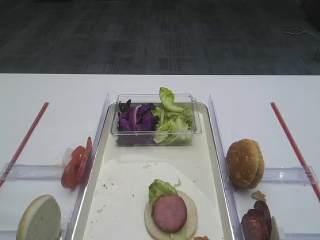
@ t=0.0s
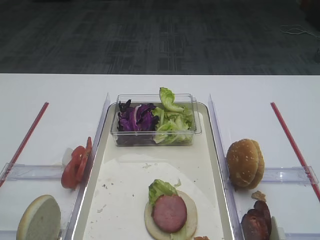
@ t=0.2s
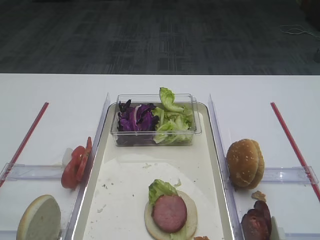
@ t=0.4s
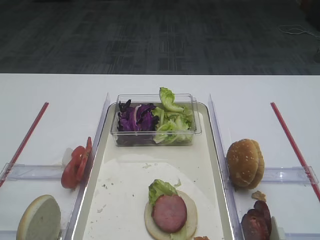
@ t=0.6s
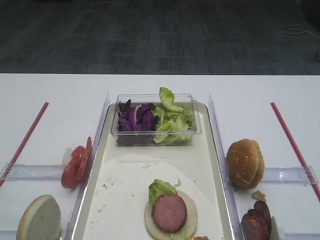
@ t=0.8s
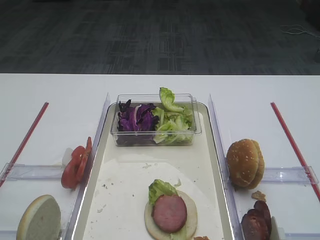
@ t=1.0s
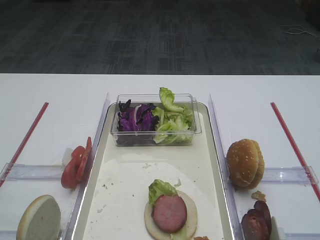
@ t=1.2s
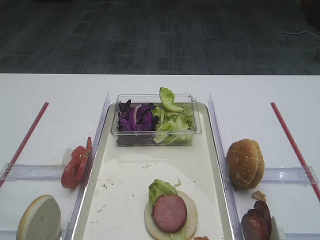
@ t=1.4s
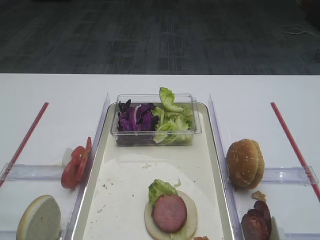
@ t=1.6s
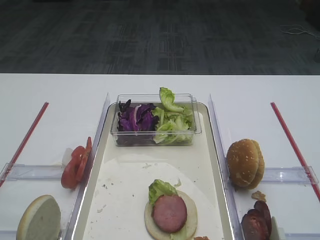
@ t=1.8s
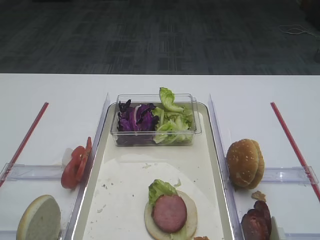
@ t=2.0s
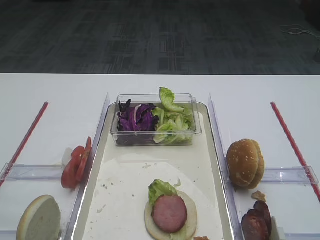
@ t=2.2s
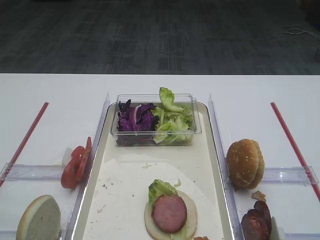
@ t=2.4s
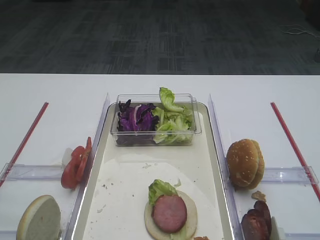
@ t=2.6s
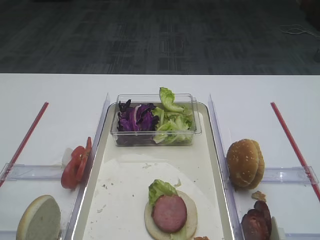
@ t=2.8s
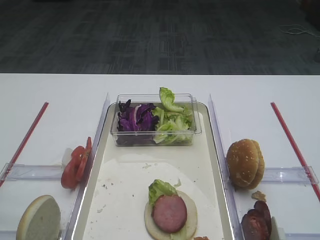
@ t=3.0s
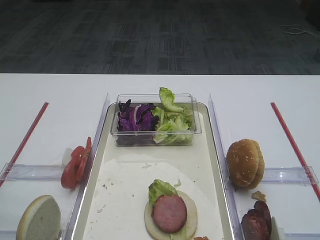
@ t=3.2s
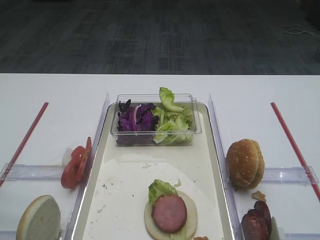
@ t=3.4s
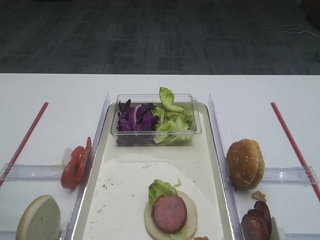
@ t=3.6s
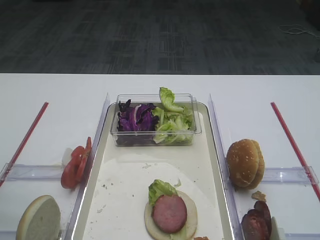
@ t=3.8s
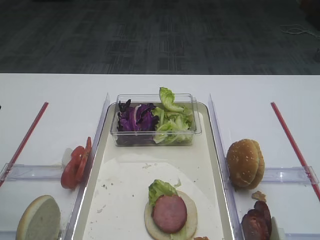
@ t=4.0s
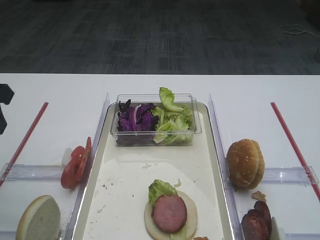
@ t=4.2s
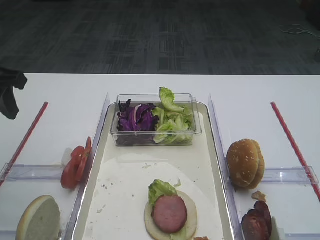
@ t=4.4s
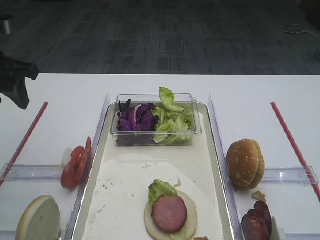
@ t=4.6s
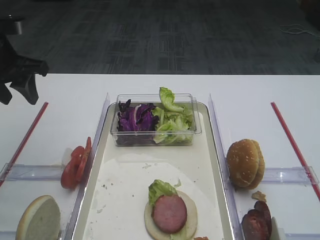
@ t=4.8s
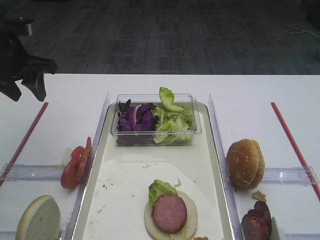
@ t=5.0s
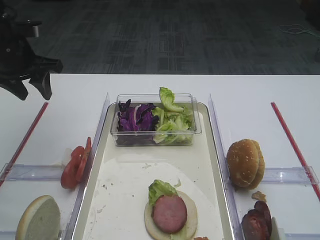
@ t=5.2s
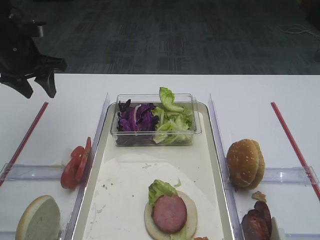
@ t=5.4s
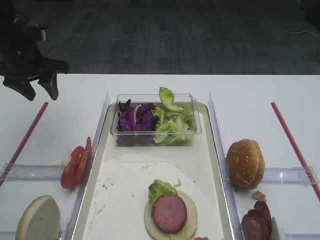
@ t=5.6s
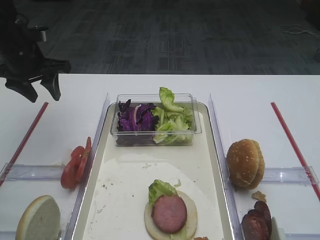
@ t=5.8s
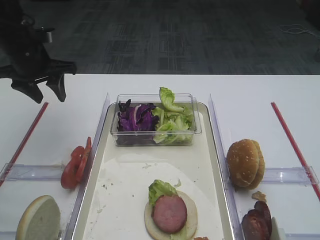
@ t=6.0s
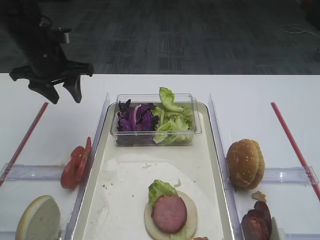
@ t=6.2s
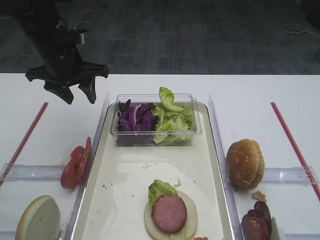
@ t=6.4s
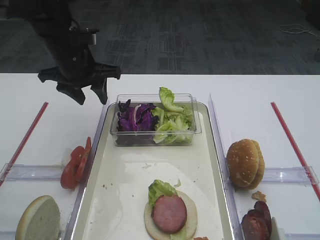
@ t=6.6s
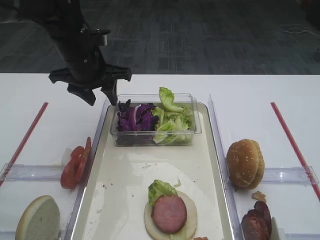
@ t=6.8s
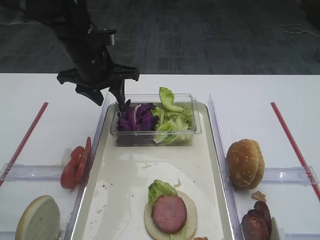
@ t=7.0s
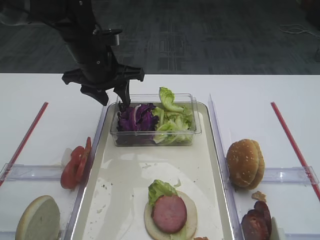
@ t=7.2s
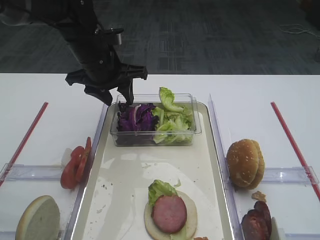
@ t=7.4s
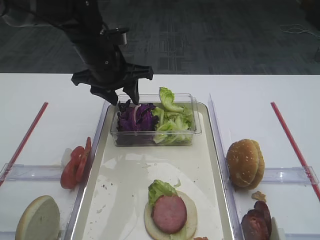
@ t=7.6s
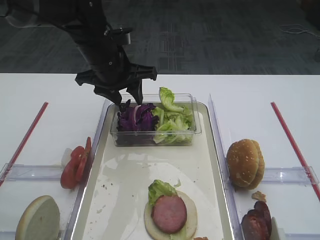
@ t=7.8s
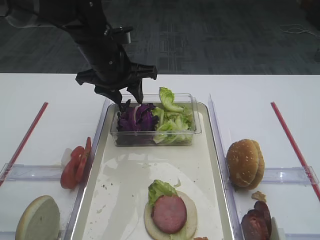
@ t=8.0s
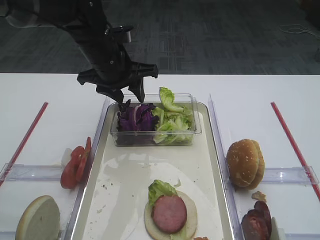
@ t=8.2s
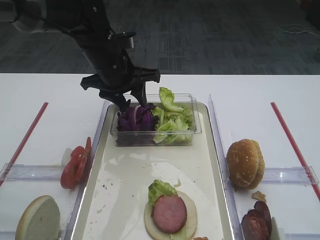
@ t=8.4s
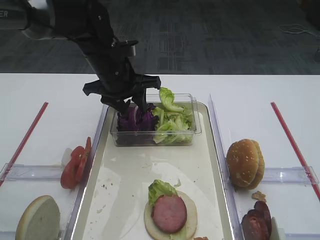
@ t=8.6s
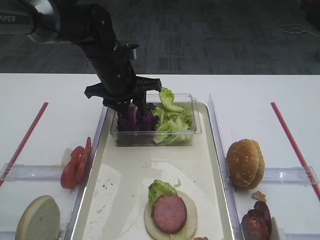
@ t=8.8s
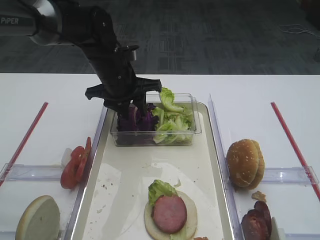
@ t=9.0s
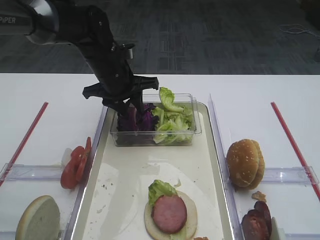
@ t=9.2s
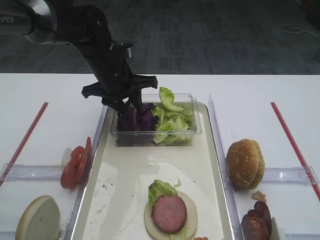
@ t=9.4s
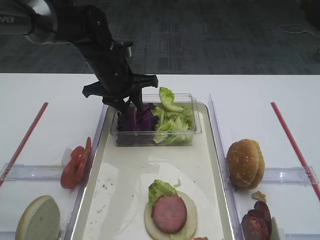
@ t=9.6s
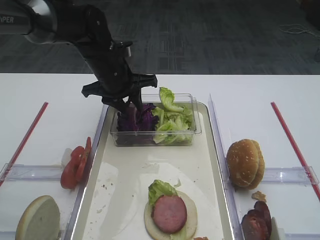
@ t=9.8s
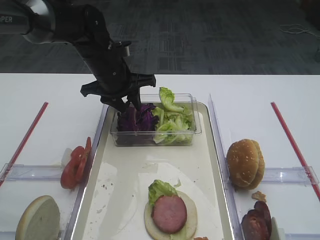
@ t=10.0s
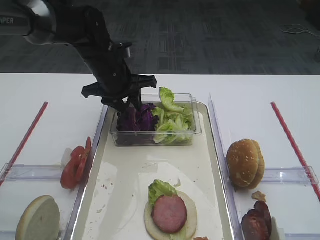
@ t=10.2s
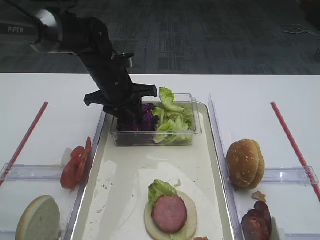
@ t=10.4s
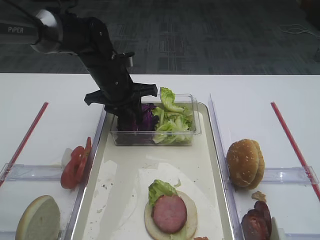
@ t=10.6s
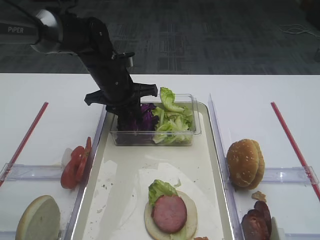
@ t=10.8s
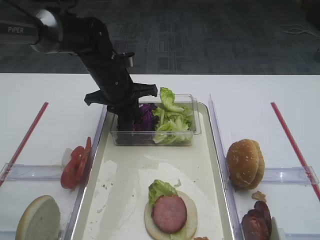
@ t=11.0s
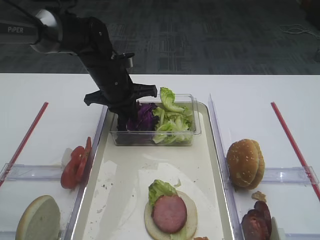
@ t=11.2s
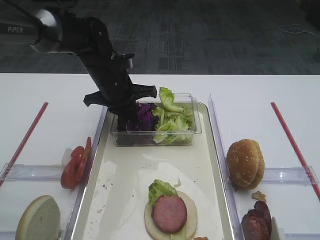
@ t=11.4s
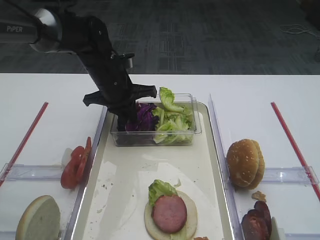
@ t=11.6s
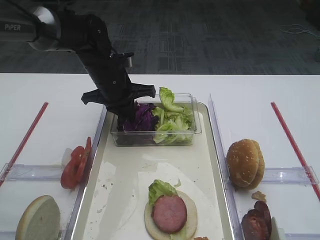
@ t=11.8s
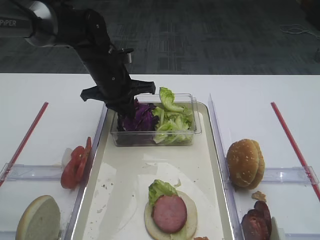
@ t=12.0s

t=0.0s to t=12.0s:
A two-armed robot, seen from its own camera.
t=3.0s to t=4.4s: The left gripper moves forward, about 20 cm.
t=4.4s to t=6.0s: The left gripper travels forward and downward by approximately 15 cm.
t=6.0s to t=7.6s: The left gripper moves to the right, roughly 15 cm.
t=7.6s to t=9.0s: The grippers make only small movements.
t=9.0s to t=10.4s: The grippers move only a little.
t=10.4s to t=12.0s: The left gripper closes up.

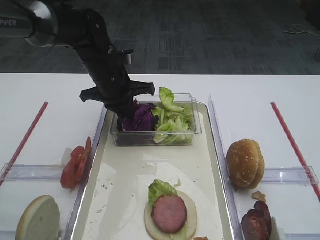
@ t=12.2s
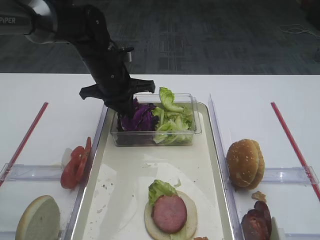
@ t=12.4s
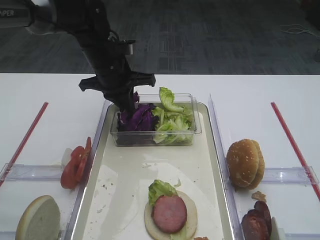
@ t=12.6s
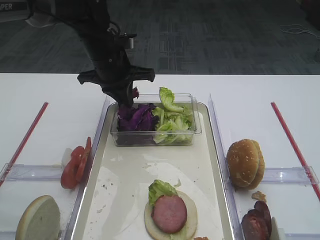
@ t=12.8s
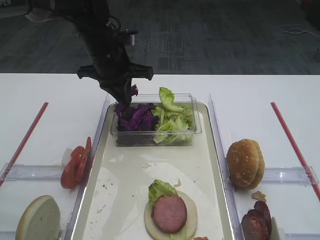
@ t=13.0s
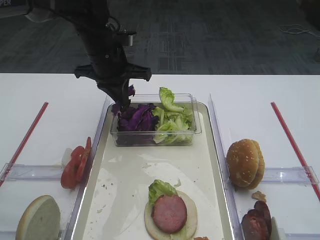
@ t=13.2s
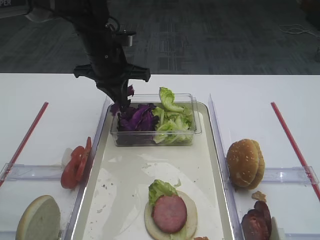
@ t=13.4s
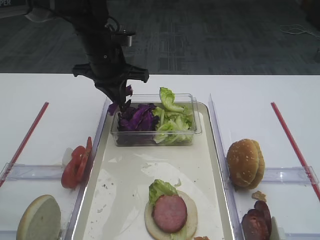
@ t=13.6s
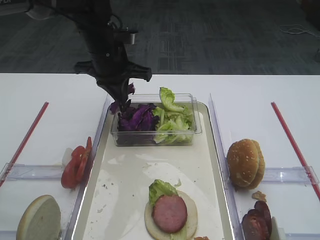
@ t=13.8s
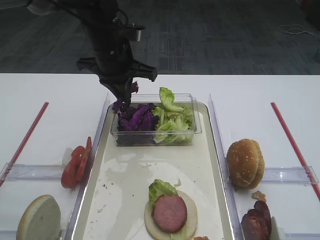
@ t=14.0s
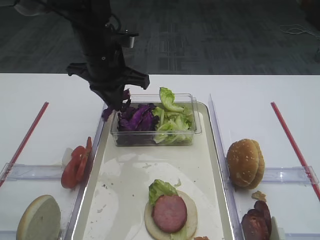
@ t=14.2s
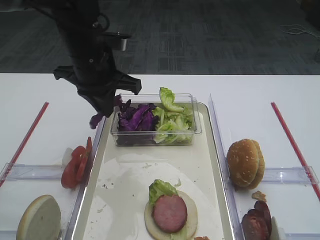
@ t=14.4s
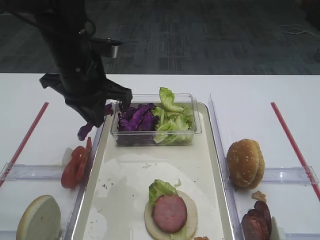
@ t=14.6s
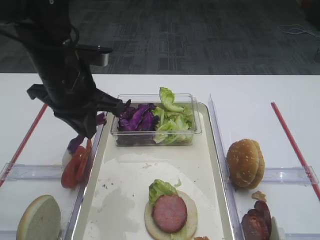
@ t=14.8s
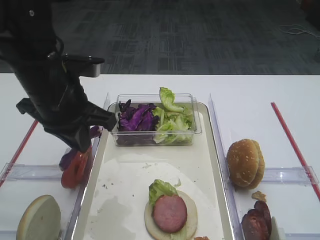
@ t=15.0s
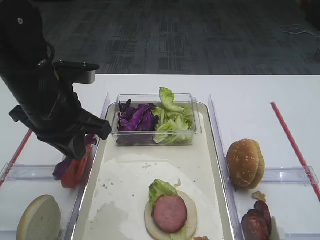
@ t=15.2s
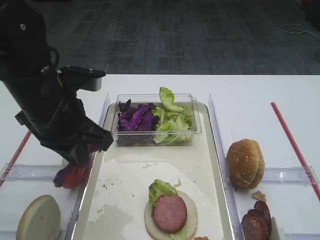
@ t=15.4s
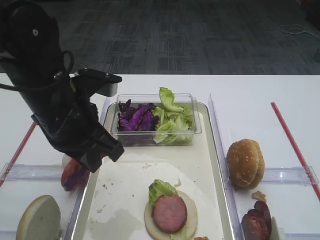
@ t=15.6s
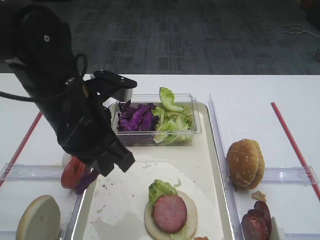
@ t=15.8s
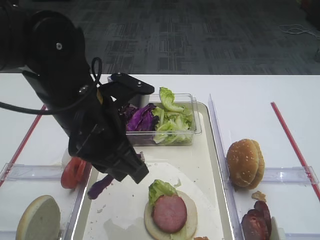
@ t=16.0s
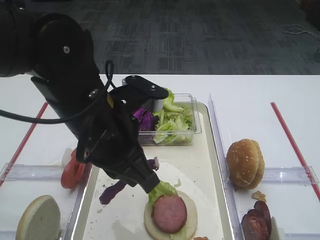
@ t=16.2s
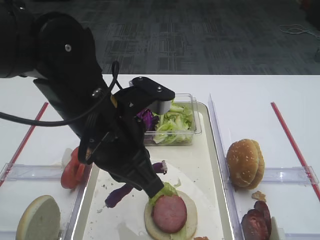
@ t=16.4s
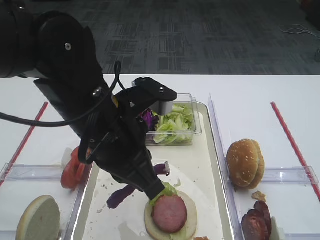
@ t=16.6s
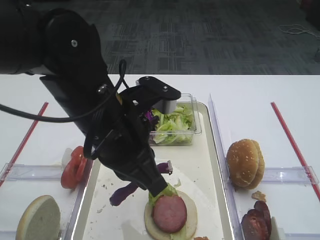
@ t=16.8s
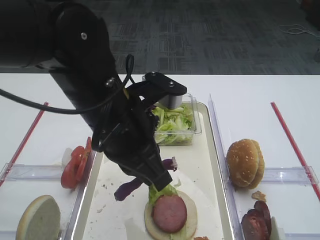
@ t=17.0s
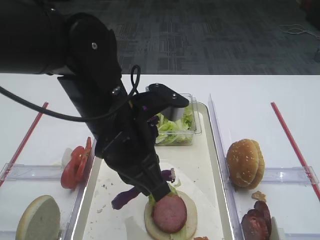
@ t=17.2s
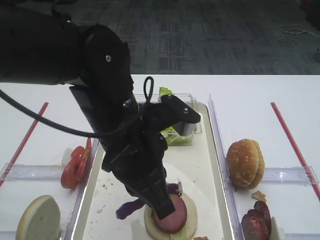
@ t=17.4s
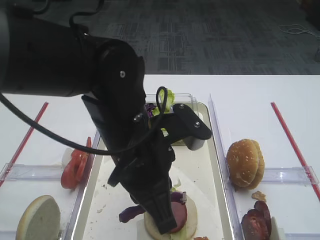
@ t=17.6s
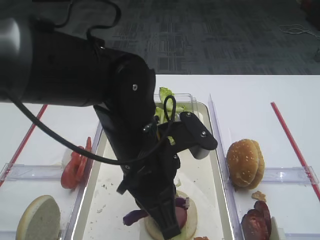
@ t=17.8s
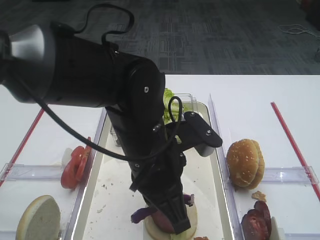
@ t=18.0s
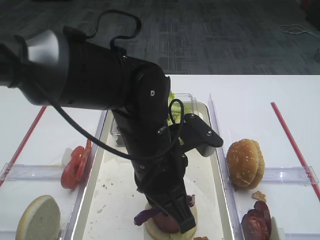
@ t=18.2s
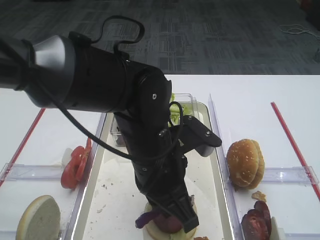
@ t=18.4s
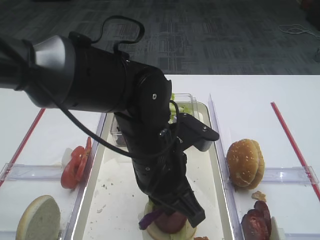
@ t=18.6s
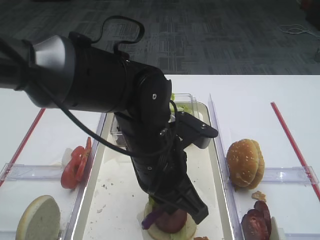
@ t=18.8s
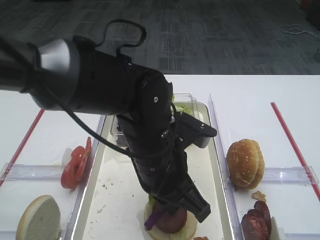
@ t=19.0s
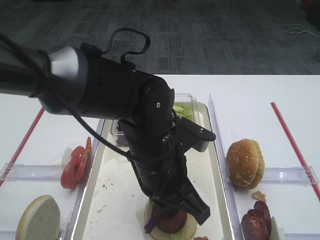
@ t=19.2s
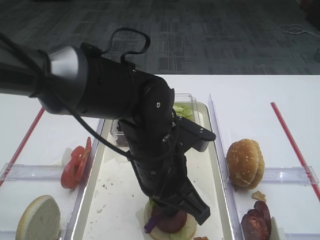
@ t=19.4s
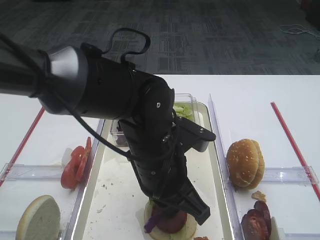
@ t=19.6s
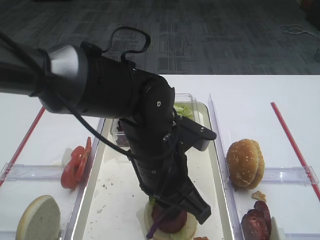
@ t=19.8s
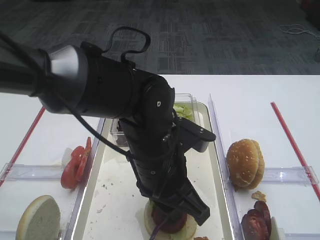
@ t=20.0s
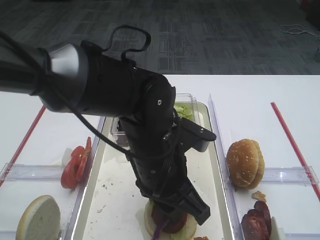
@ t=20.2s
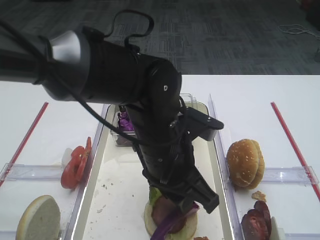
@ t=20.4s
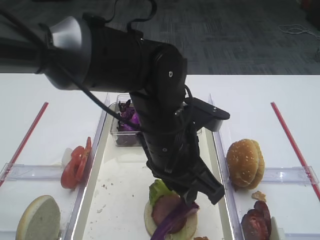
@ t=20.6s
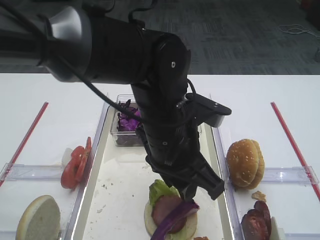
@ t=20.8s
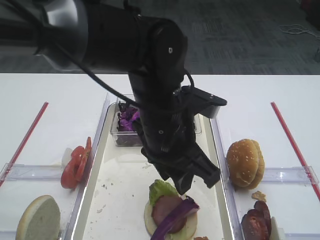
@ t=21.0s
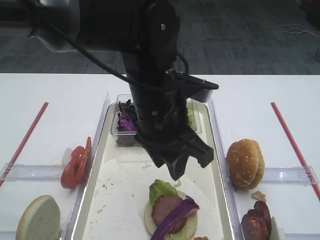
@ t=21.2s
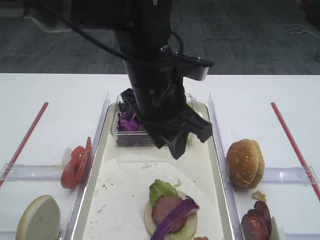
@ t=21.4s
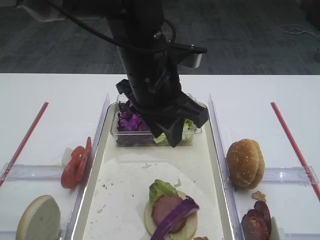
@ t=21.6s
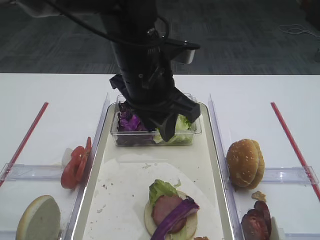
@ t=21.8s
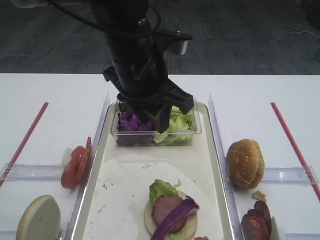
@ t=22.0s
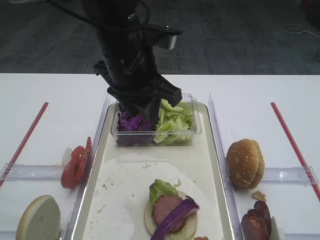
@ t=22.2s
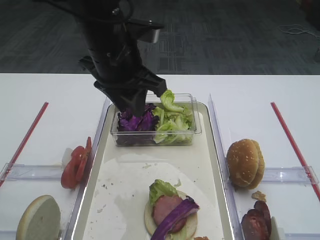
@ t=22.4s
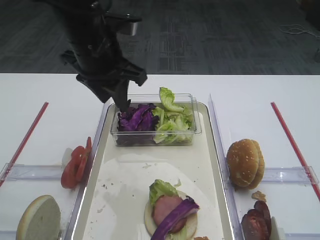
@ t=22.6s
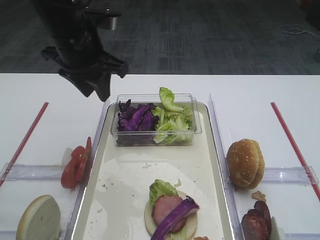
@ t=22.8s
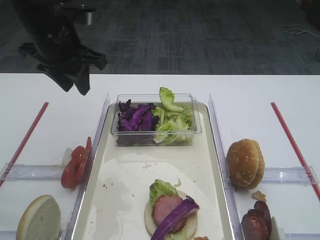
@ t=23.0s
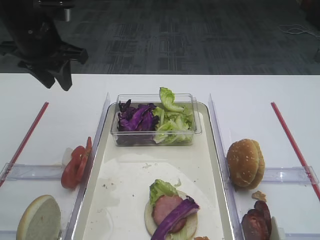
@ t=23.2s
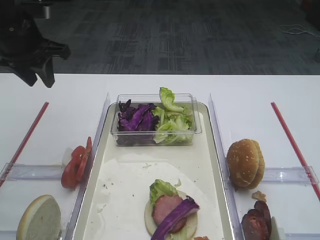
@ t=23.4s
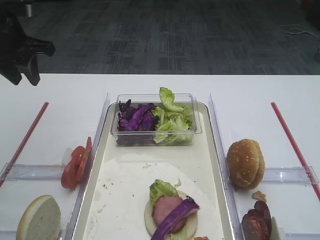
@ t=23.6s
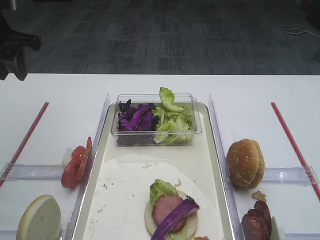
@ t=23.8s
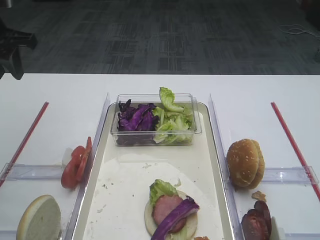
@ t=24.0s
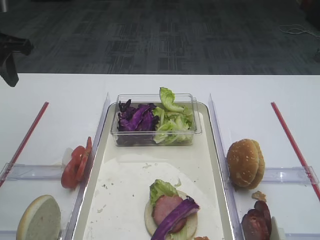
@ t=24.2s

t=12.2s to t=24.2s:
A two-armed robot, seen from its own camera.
Step, t=13.6s to t=20.8s: Place the purple cabbage on the cutlet with the left gripper.
t=12.2s to t=13.8s: The left gripper shifts about 5 cm upward.
t=13.8s to t=15.2s: The left gripper shifts about 15 cm backward.
t=15.2s to t=16.6s: The left gripper goes some 10 cm to the right and backward.
t=16.6s to t=18.2s: The left gripper travels to the right by approximately 5 cm.
t=18.2s to t=19.8s: The grippers make only small movements.
t=19.8s to t=21.2s: The left gripper moves upward, some 5 cm.
t=21.2s to t=22.6s: The left gripper goes about 15 cm to the left and forward.
t=22.6s to t=24.2s: The left gripper is displaced to the left by approximately 20 cm.
